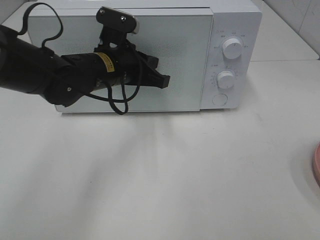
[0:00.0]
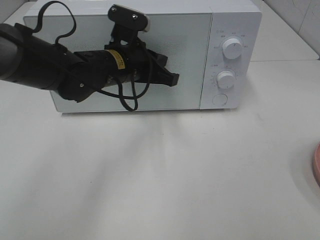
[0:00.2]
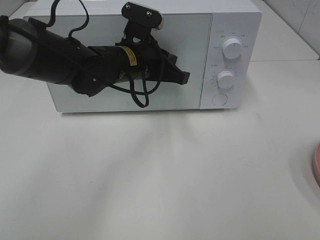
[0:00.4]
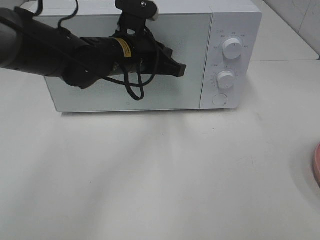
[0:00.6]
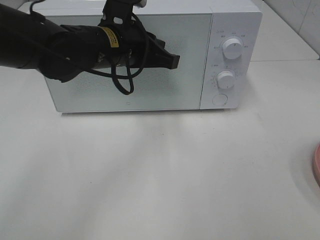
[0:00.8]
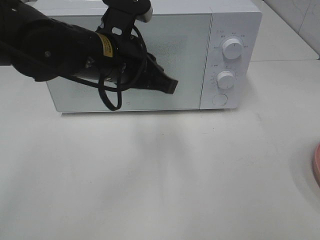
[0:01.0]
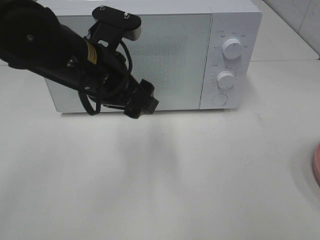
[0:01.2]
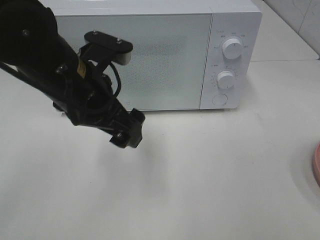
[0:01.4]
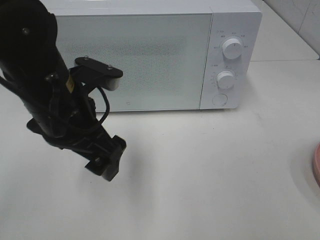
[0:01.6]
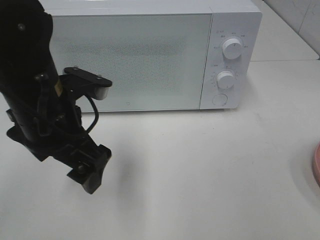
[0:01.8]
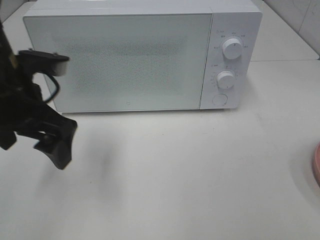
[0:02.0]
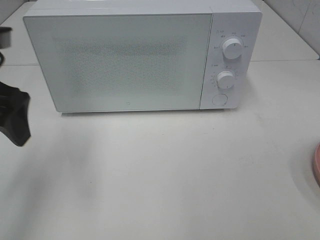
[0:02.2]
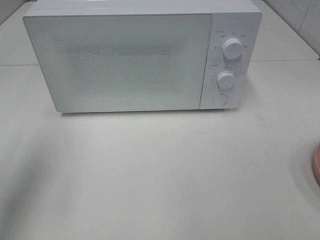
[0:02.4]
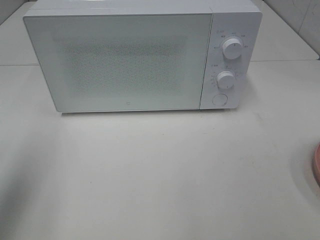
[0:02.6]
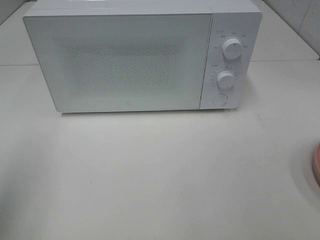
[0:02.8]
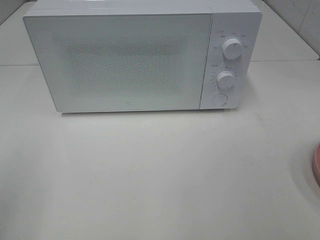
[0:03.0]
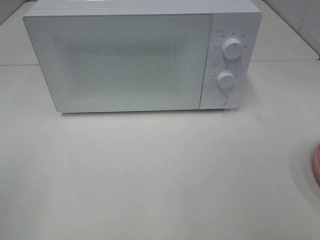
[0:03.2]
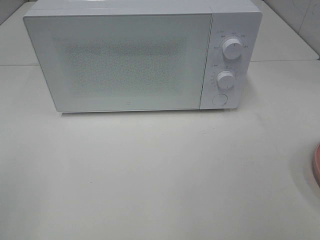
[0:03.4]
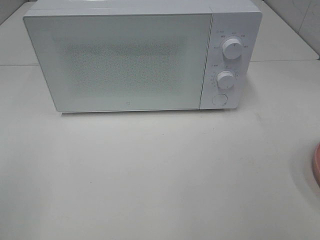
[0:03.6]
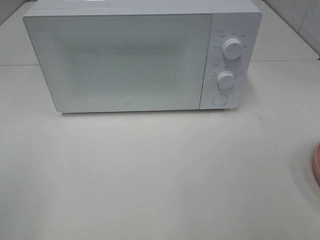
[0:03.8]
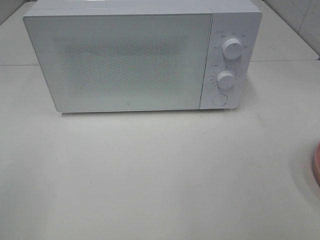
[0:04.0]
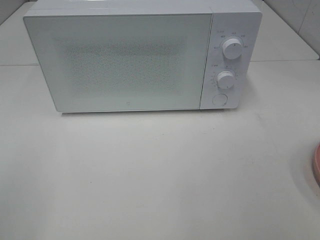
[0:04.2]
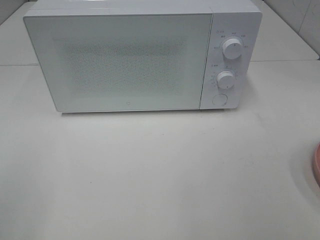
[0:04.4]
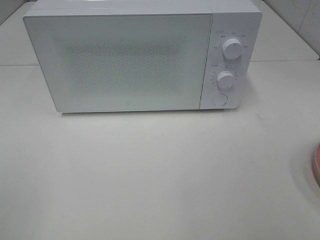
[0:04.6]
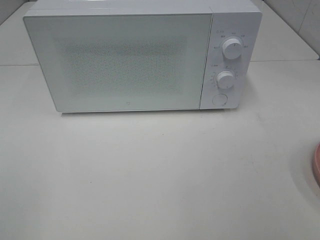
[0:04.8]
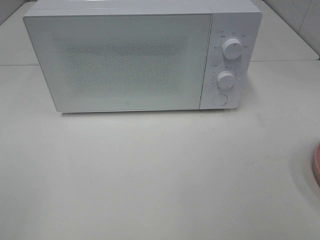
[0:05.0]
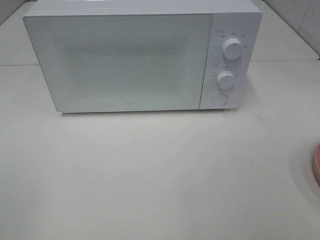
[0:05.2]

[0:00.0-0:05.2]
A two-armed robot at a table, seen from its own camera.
Task of the whole recording: Heat the burger.
0:00.0 to 0:01.8: The left gripper moves backward and to the left, approximately 15 cm, and opens.
0:01.8 to 0:03.4: The left gripper travels backward and to the left by some 30 cm.
